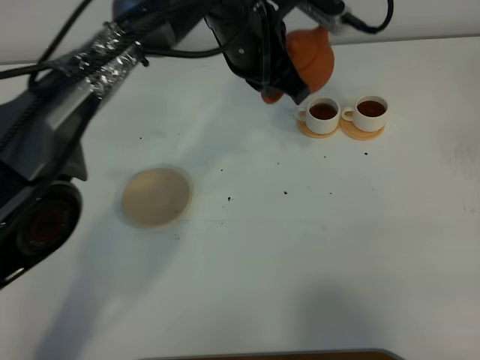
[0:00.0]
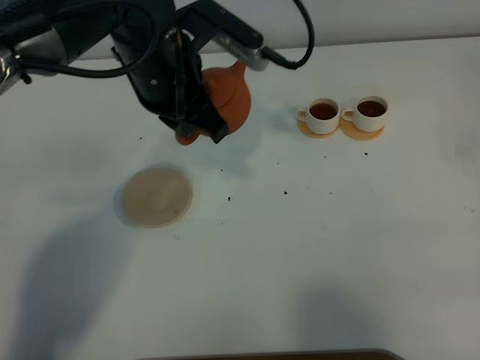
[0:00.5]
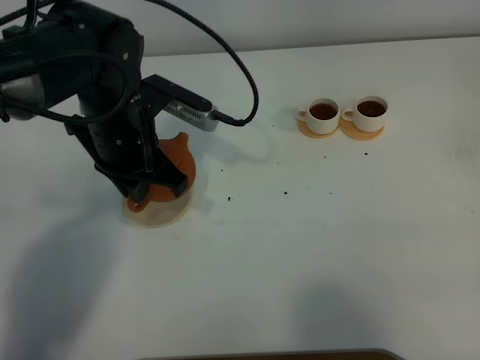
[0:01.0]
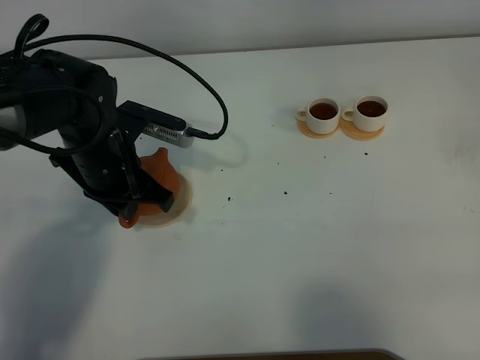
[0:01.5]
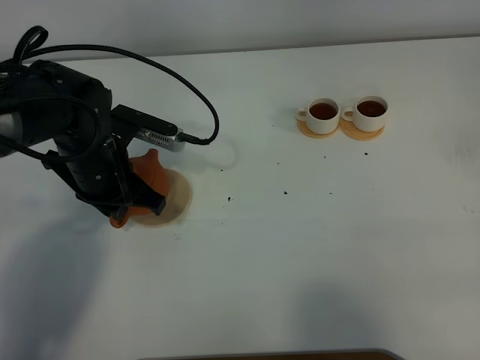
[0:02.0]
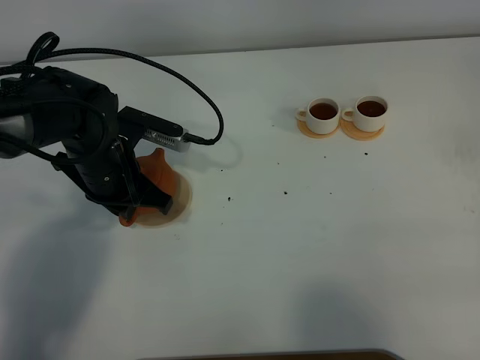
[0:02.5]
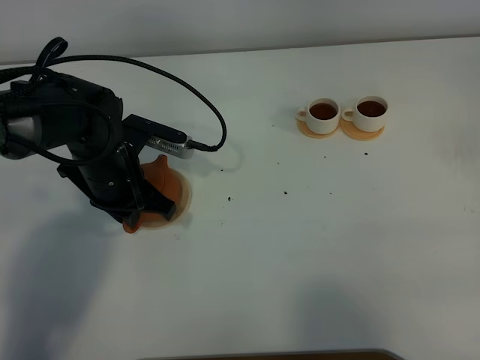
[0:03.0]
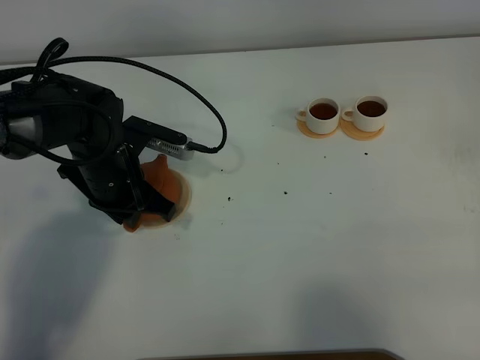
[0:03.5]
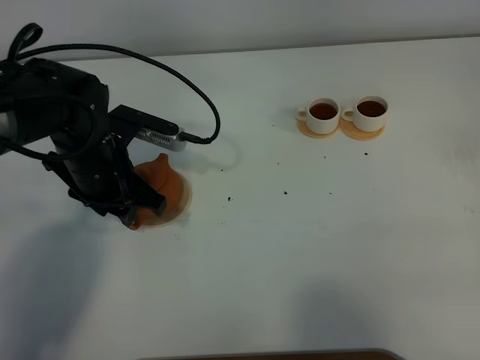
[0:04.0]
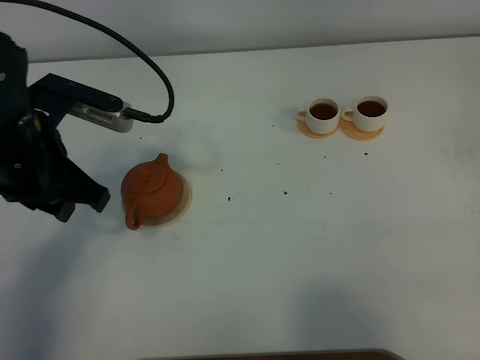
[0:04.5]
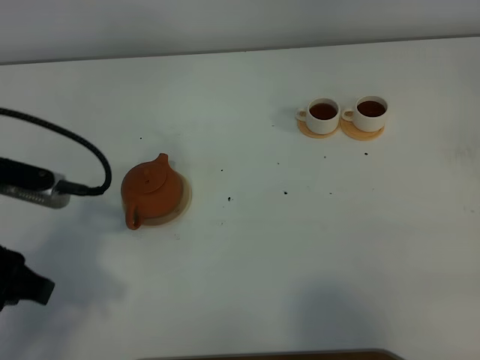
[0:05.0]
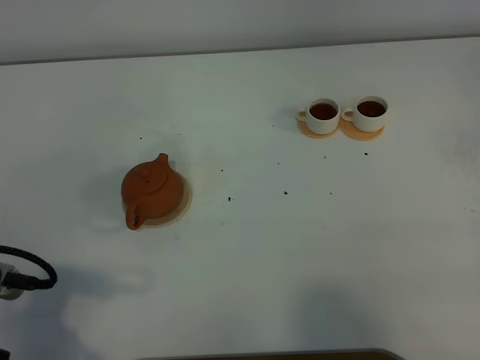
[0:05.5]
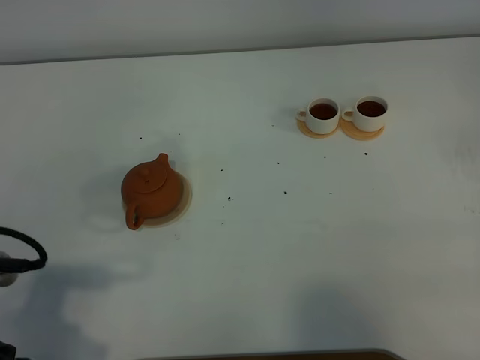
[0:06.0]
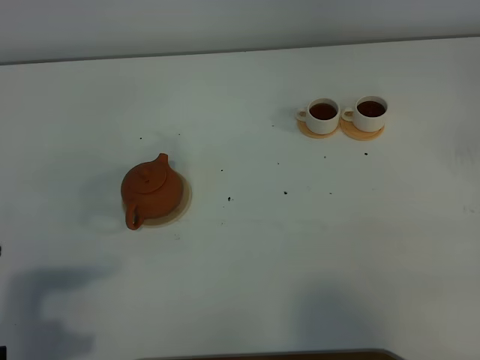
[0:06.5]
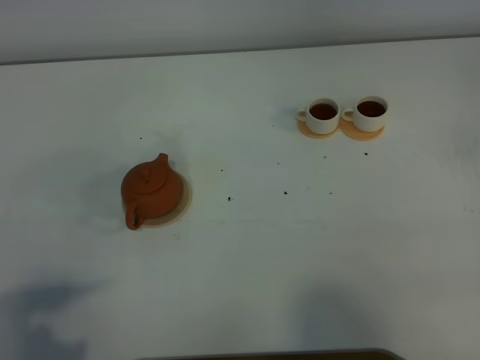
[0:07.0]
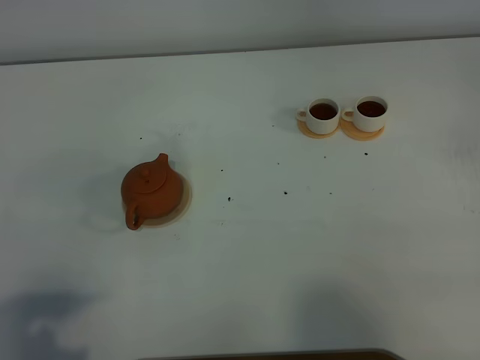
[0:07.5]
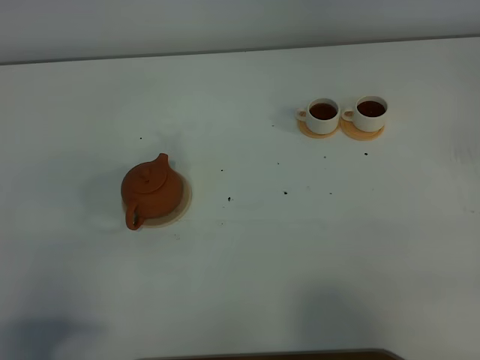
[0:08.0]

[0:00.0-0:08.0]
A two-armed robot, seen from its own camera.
Task of the whole recording: grasp the brown teapot and pour the tea into the two white teacups one by one, put the brown teapot back in its original place.
0:00.0 to 0:02.0: The left gripper moves to the left, downward and backward, approximately 20 cm.
0:02.0 to 0:04.0: The left gripper opens up.
0:04.0 to 0:06.0: The left gripper travels backward and to the left by approximately 25 cm.
0:06.0 to 0:08.0: The left gripper travels backward by approximately 10 cm.

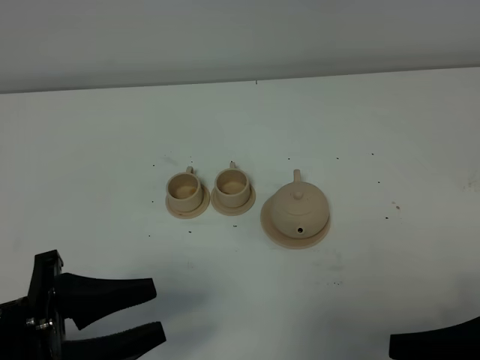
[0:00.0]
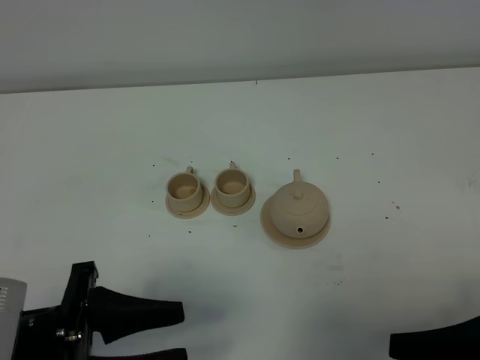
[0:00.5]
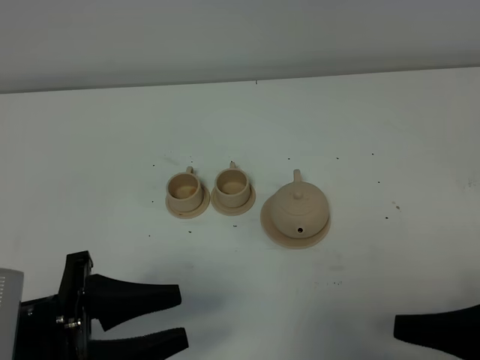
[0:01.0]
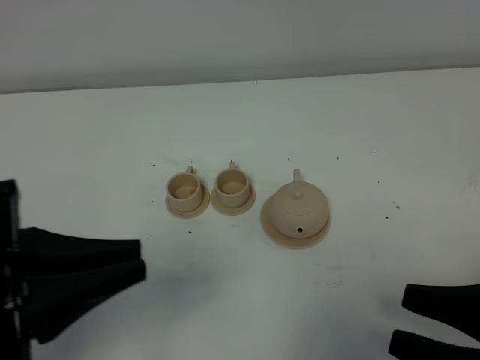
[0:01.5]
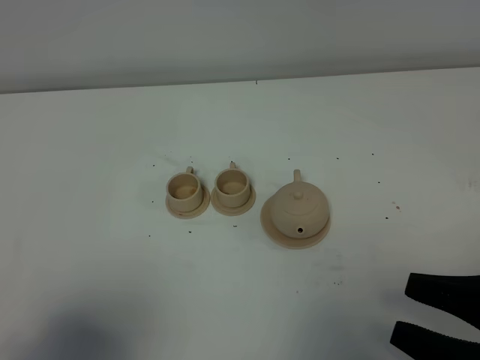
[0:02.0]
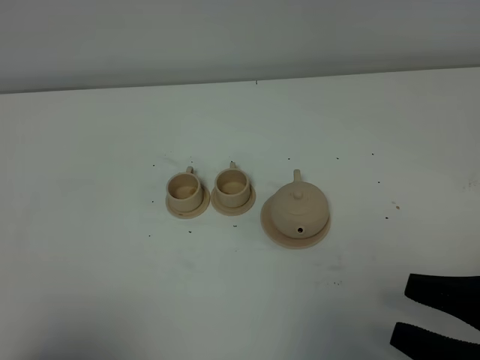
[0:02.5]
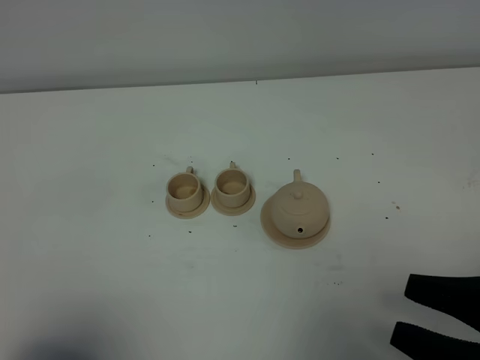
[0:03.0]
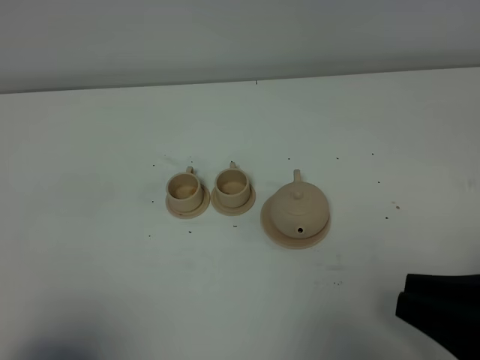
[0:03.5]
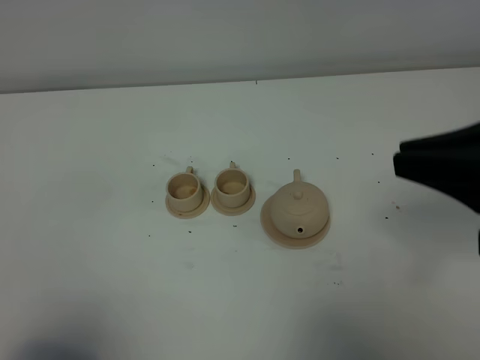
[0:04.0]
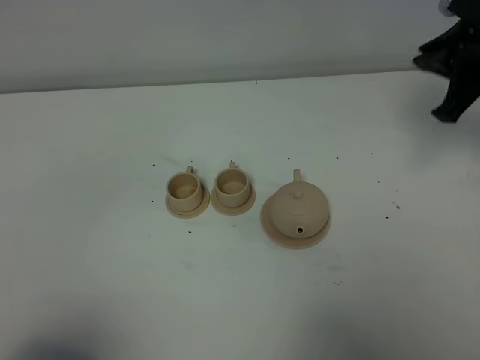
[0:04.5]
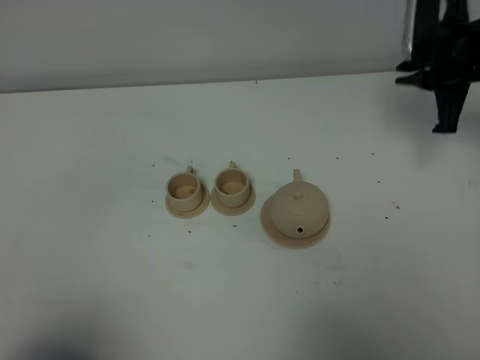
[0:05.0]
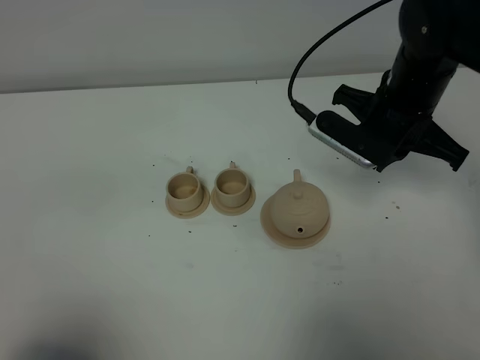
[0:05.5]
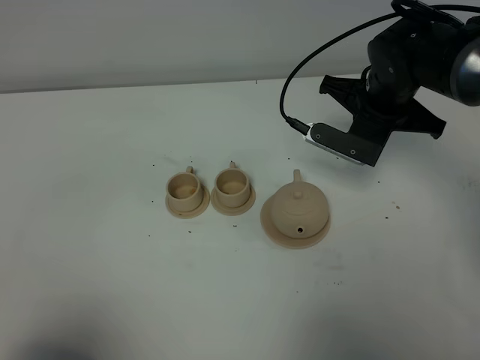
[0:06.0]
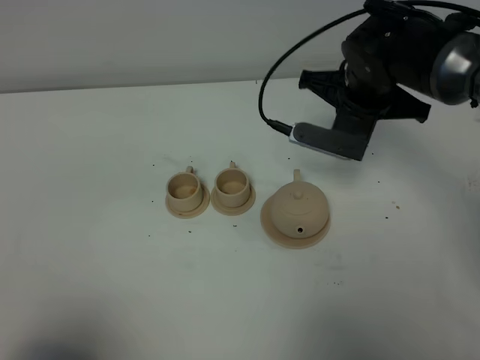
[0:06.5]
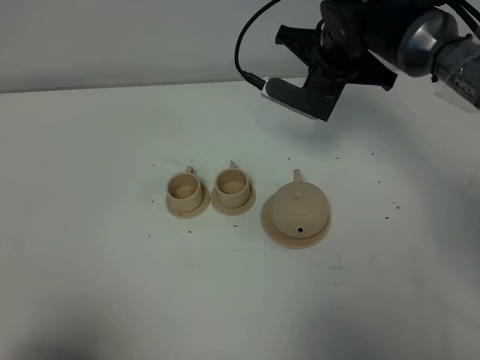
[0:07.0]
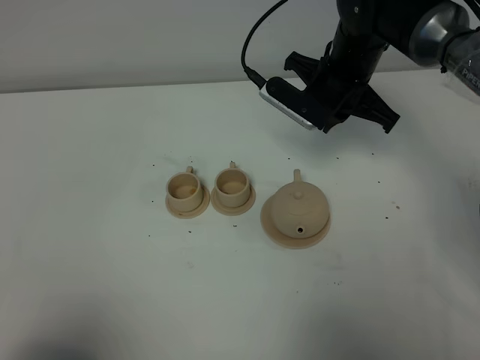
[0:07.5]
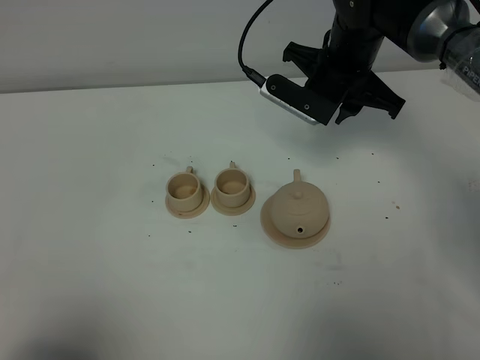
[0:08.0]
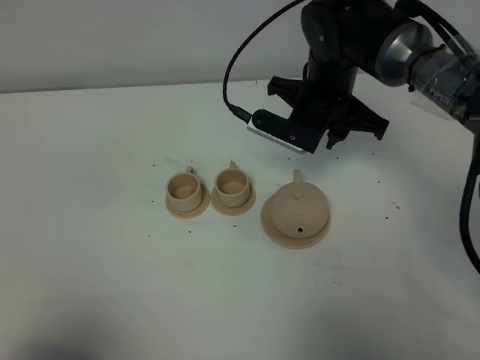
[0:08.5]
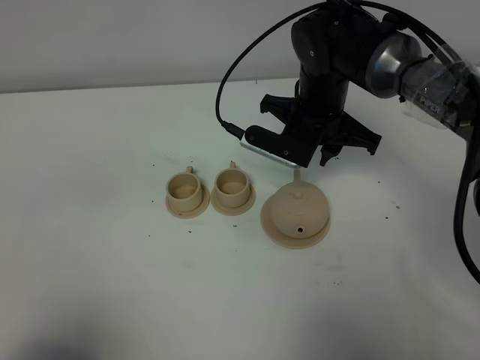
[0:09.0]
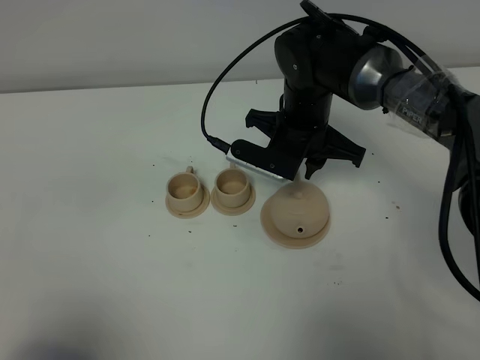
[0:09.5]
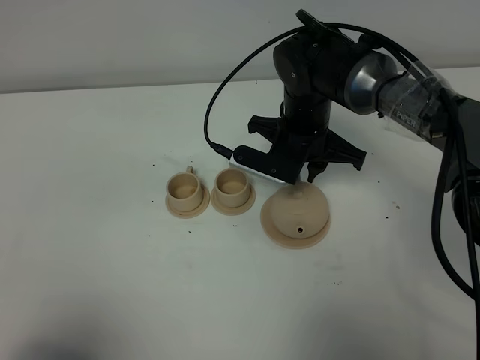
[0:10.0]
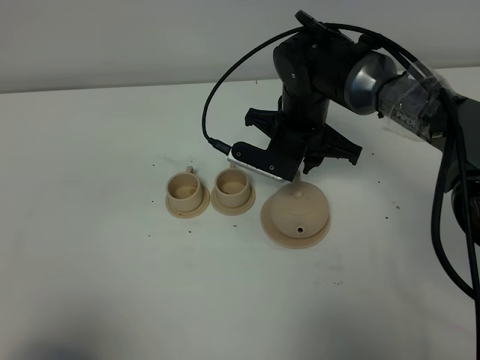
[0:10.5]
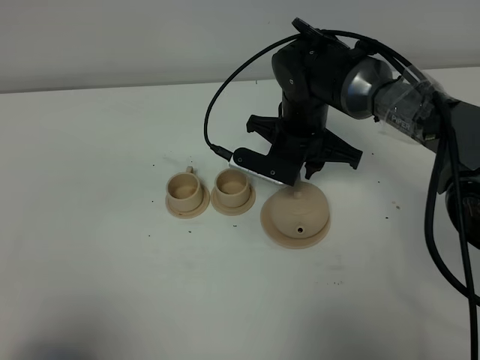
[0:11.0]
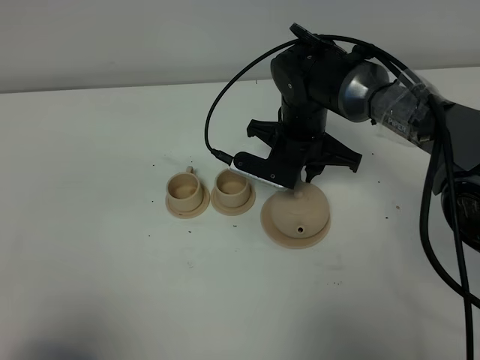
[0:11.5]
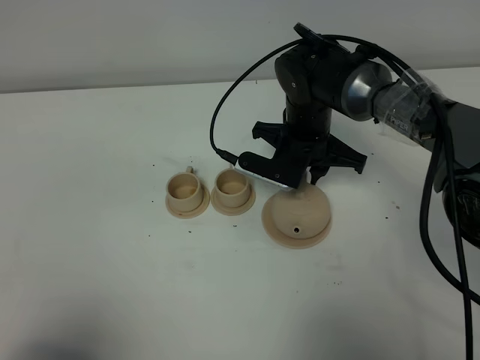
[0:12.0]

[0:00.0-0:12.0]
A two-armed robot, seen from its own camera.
Task of the whole recording: grasp the brown teapot and pour the tea into the two brown teacups one by one, put the brown teapot back in its original place.
0:00.0 to 0:02.0: The left gripper goes some 15 cm upward and backward, and closes up.
0:02.0 to 0:04.0: The right gripper is displaced forward and upward by roughly 15 cm, and closes up.
0:04.0 to 0:06.0: The right gripper goes forward and backward, roughly 25 cm each way, reversing 2 times.
0:06.0 to 0:08.0: The right gripper changes place by some 5 cm, and opens up.
0:08.0 to 0:10.0: The right gripper travels downward by approximately 5 cm.
0:10.0 to 0:12.0: There are only small adjustments of the grippers.

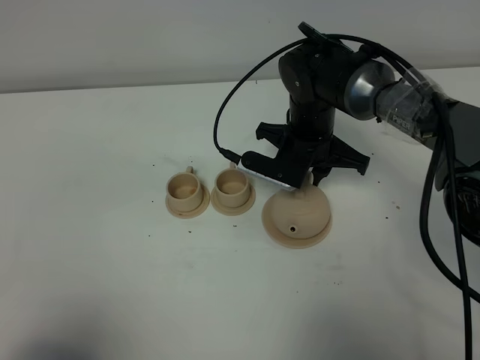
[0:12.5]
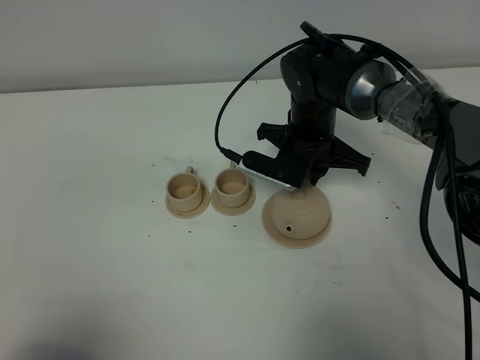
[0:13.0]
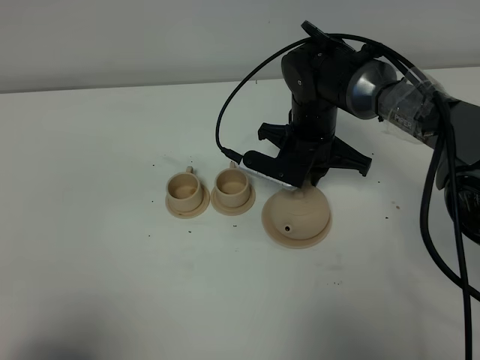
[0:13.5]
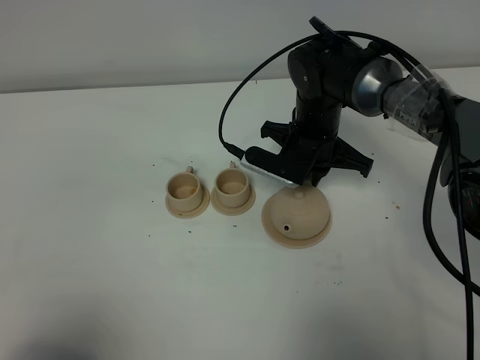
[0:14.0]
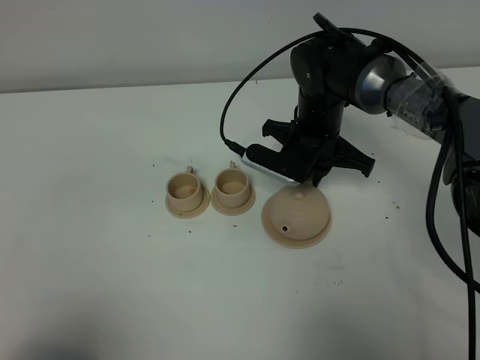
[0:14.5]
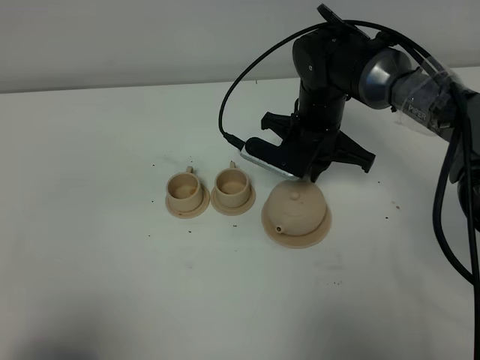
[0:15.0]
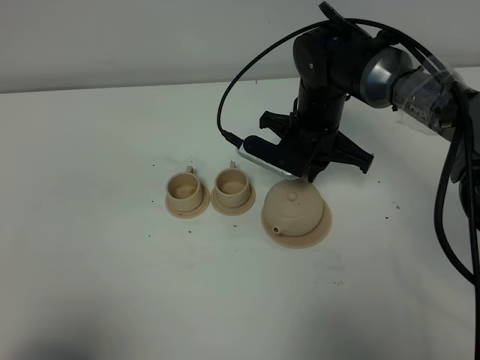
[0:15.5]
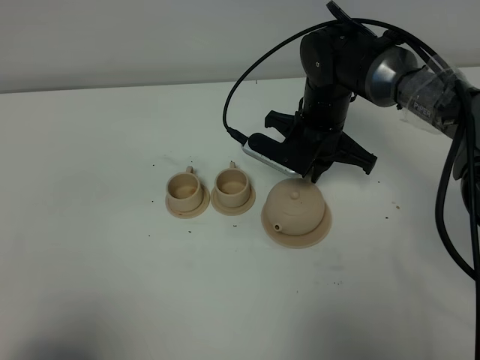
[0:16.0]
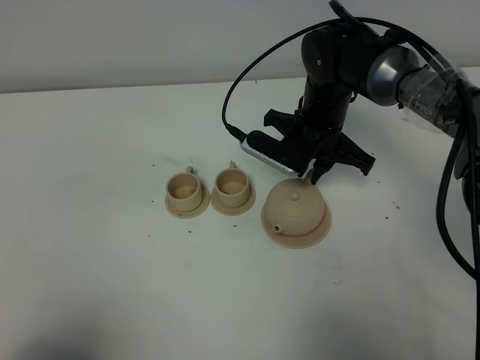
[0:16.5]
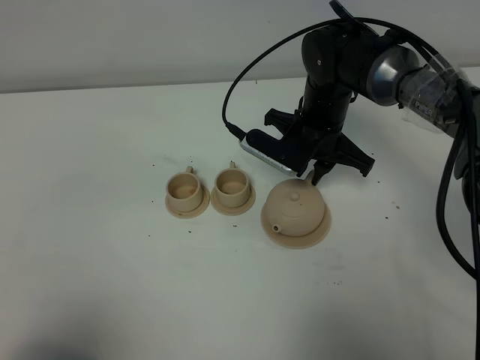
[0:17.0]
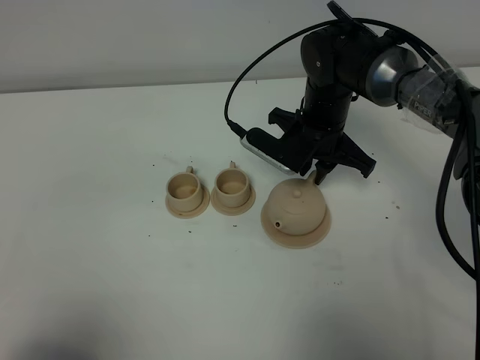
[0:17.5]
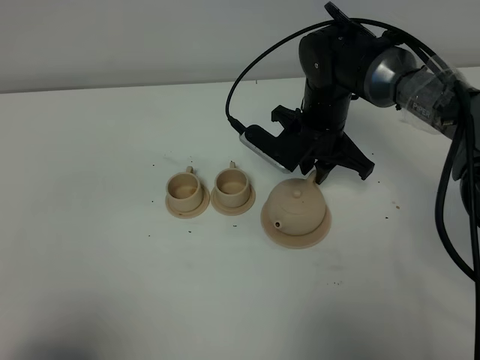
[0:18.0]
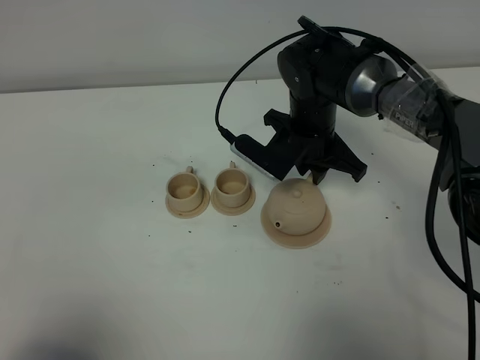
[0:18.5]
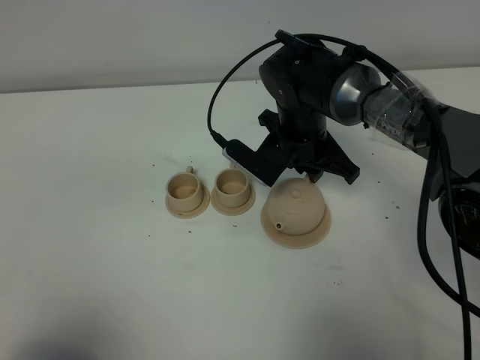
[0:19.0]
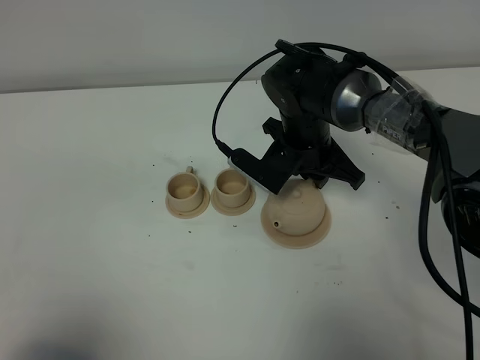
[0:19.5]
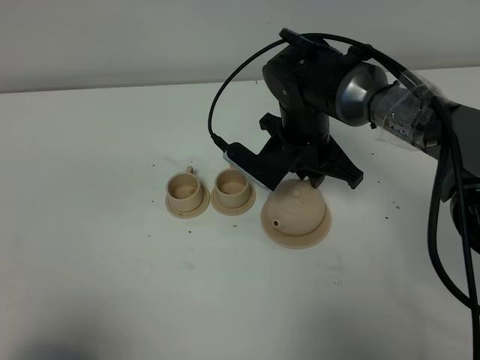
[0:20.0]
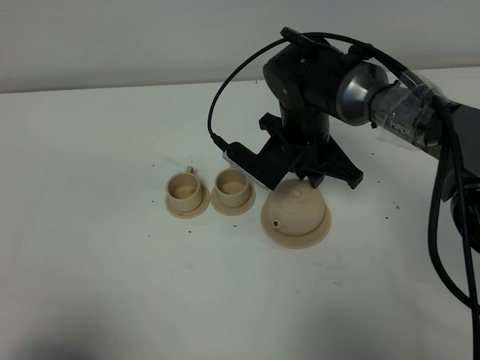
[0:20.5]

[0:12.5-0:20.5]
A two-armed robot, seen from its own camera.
Task of the whole recording: grasp the brown teapot and pour the tea into the two brown teacups one by one, put the brown teapot back in its original place.
0:12.5 to 0:14.5: Both grippers stay about where they are.
0:14.5 to 0:20.5: The grippers move only a little.
